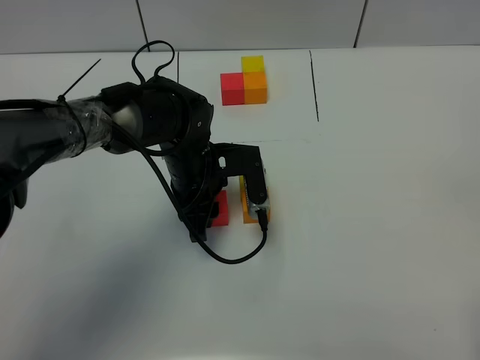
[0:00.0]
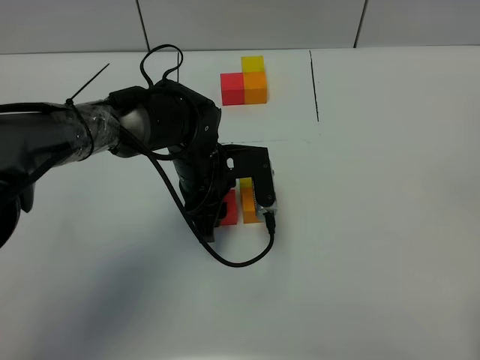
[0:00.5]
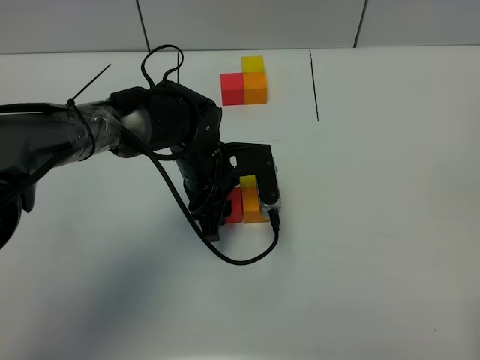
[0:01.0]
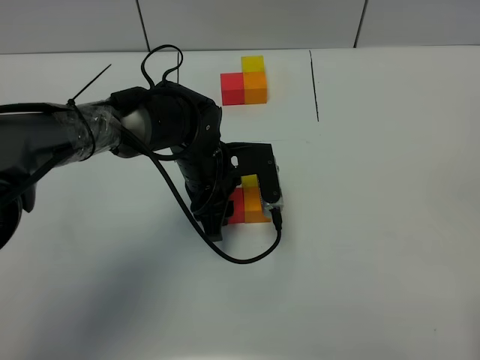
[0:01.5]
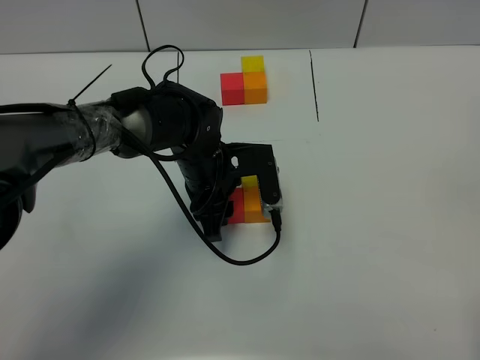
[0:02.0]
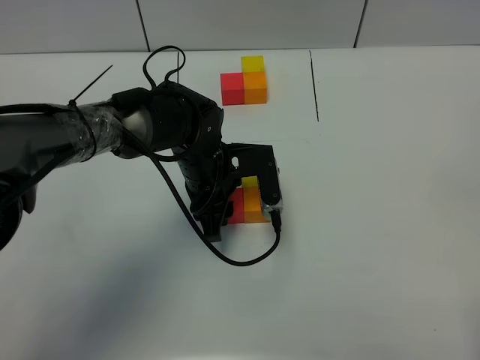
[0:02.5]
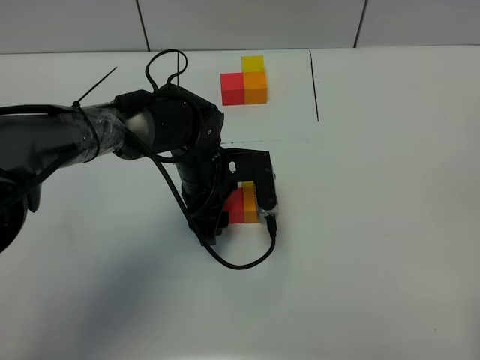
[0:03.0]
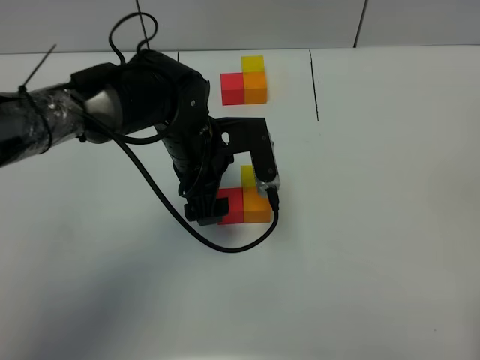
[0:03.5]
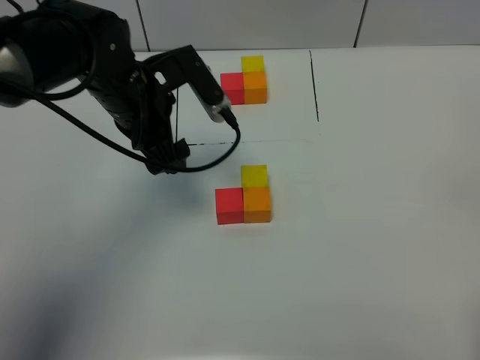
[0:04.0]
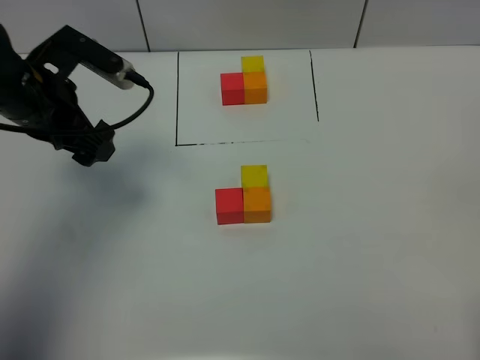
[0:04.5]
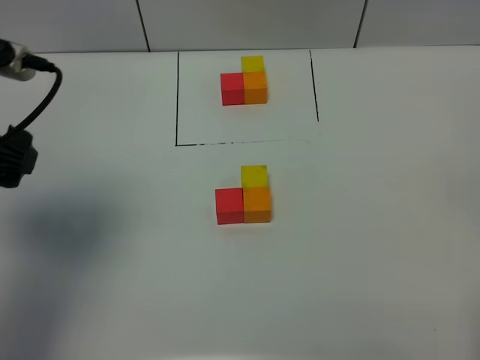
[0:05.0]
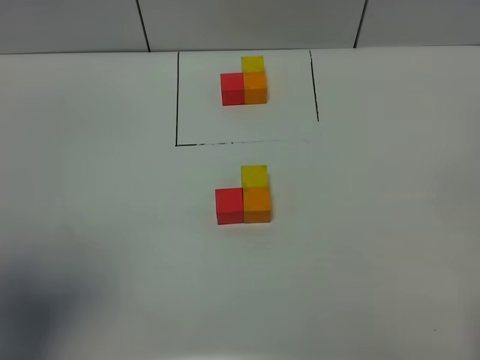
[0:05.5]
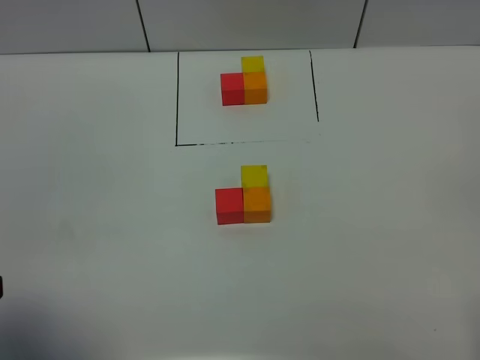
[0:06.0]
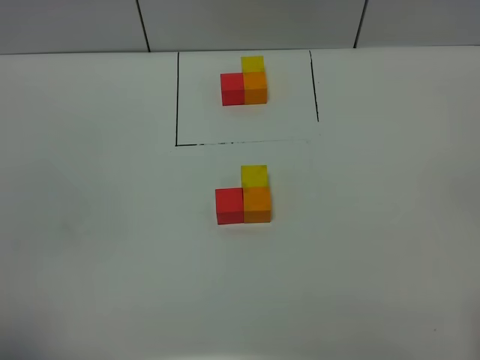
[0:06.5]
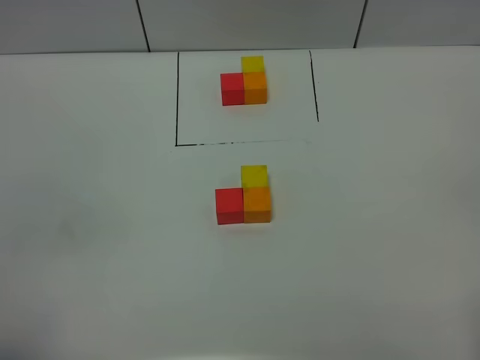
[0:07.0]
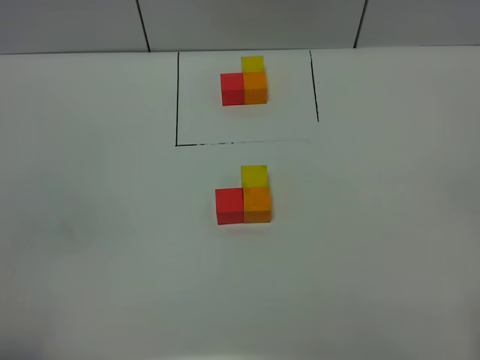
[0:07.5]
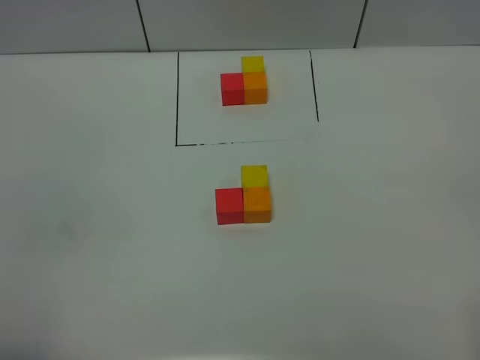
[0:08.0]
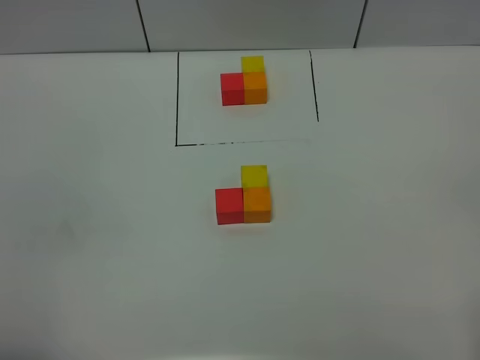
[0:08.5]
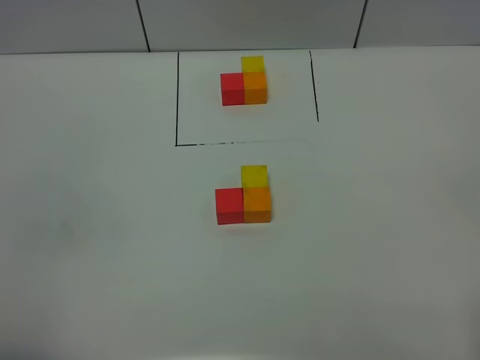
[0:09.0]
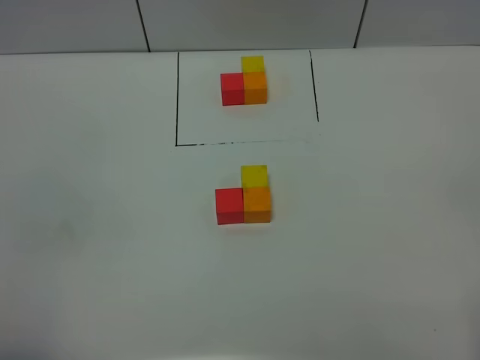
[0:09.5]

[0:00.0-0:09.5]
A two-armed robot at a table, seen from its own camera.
Task of the whole recording: According to the building block template in front, assemble the scattered blocks together.
Step, 0:00.0 to 0:02.5: Put the red build block on the left of the orange build block.
0:00.0 to 0:02.0: The grippers move only a little.
0:02.0 to 0:04.0: The left gripper goes about 15 cm upward and to the left, and opens.
0:04.0 to 0:05.5: The left gripper goes about 30 cm backward, to the left and upward.
0:05.5 to 0:07.5: The left gripper moves backward and downward, approximately 15 cm, and closes up.
